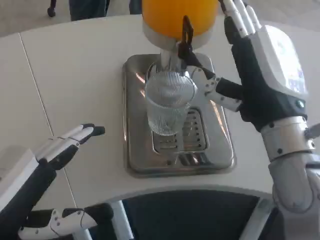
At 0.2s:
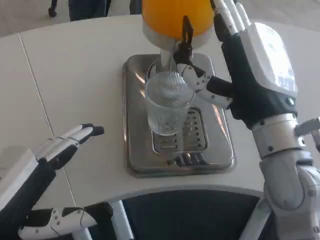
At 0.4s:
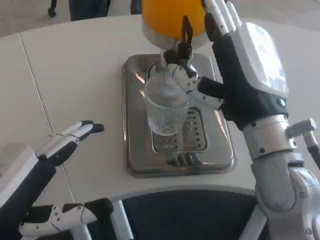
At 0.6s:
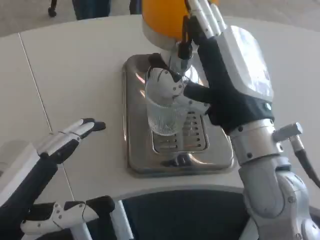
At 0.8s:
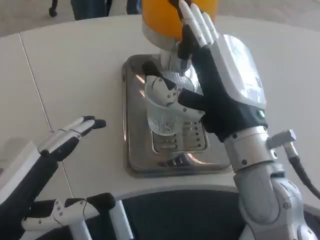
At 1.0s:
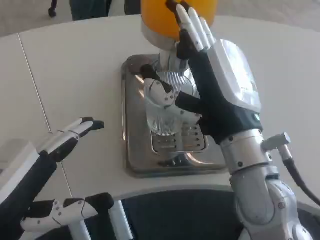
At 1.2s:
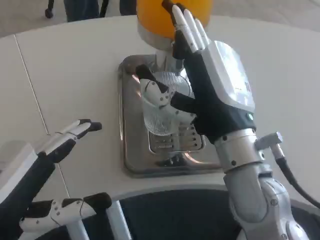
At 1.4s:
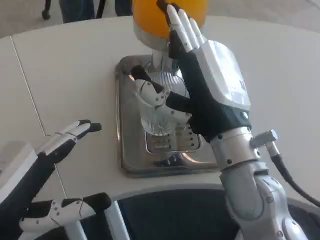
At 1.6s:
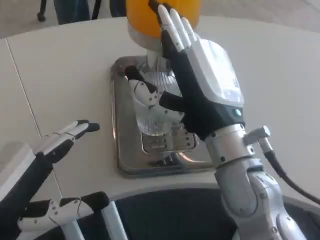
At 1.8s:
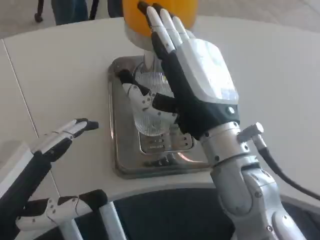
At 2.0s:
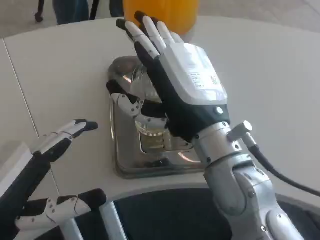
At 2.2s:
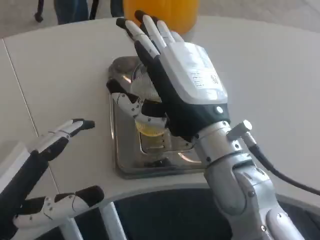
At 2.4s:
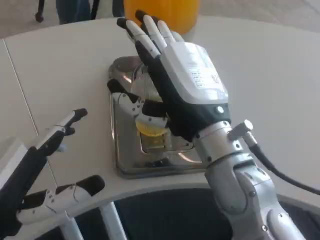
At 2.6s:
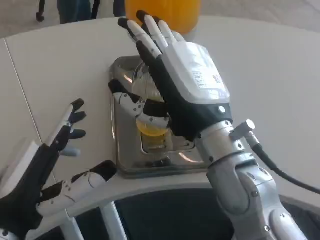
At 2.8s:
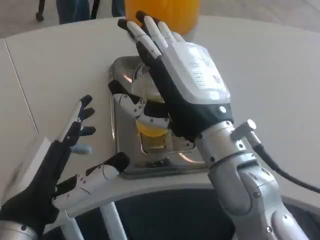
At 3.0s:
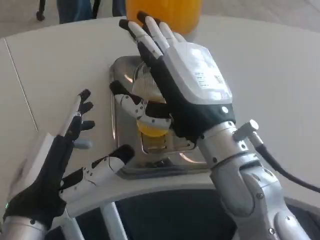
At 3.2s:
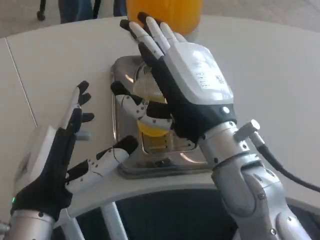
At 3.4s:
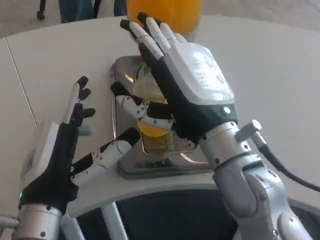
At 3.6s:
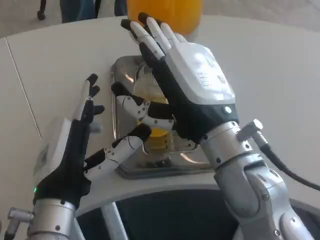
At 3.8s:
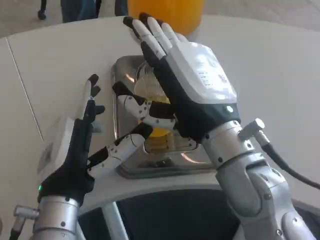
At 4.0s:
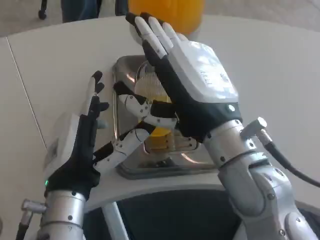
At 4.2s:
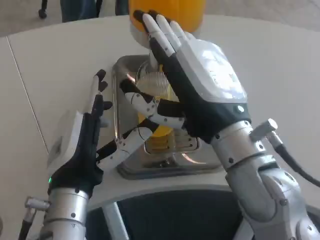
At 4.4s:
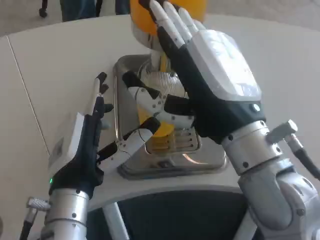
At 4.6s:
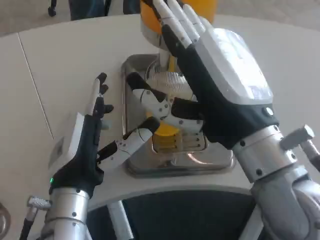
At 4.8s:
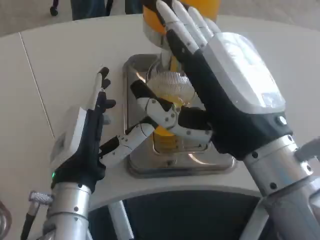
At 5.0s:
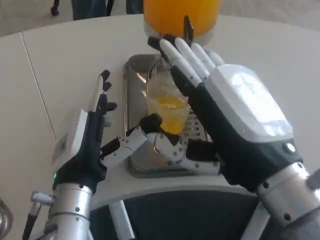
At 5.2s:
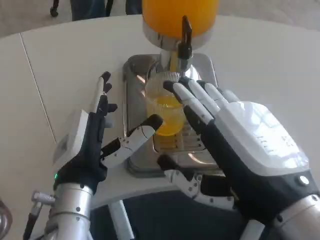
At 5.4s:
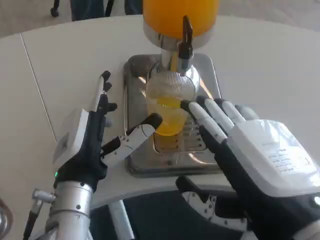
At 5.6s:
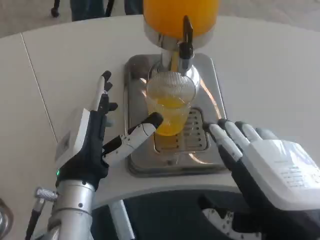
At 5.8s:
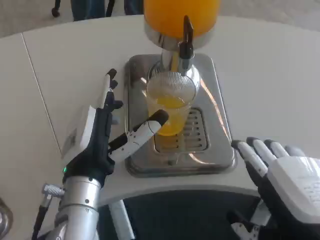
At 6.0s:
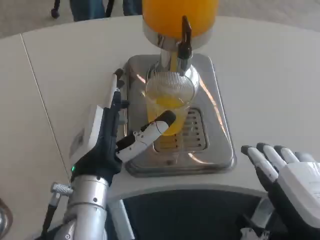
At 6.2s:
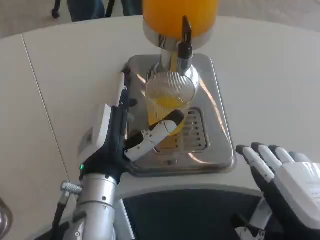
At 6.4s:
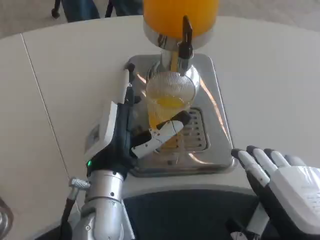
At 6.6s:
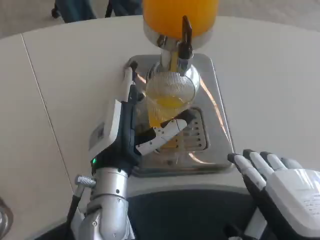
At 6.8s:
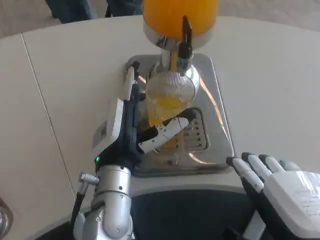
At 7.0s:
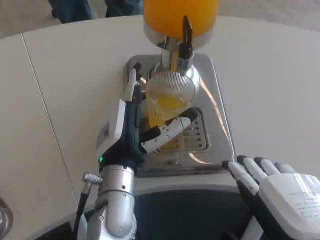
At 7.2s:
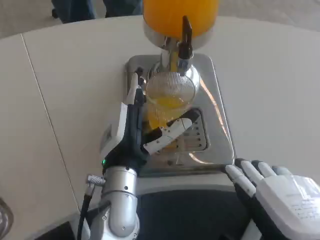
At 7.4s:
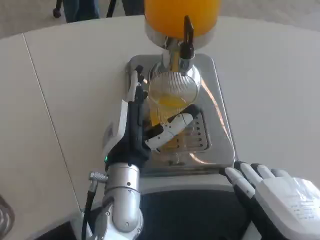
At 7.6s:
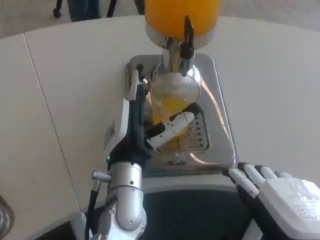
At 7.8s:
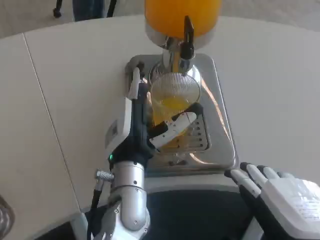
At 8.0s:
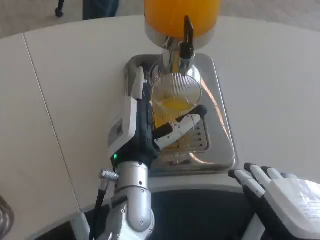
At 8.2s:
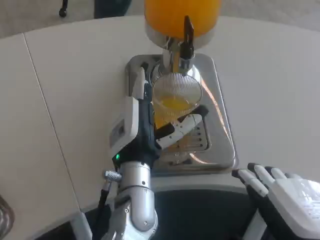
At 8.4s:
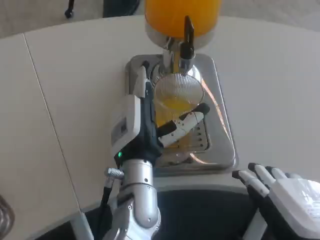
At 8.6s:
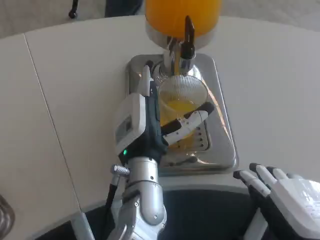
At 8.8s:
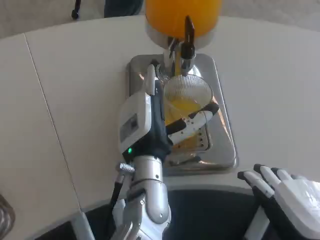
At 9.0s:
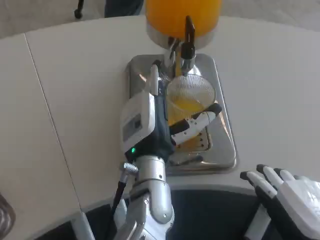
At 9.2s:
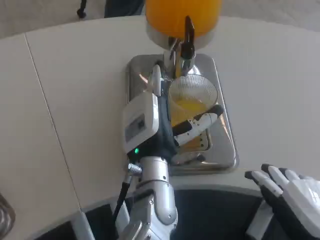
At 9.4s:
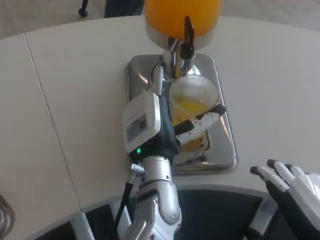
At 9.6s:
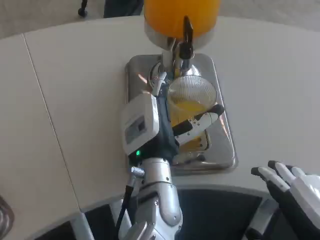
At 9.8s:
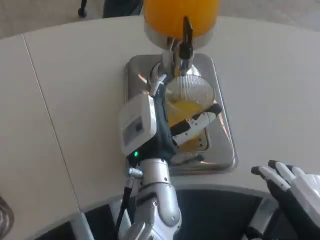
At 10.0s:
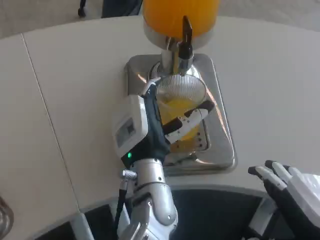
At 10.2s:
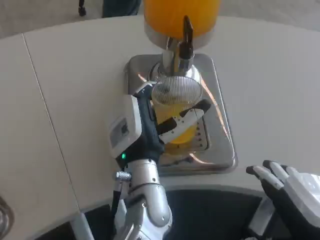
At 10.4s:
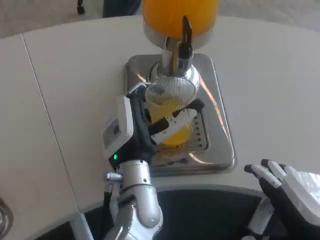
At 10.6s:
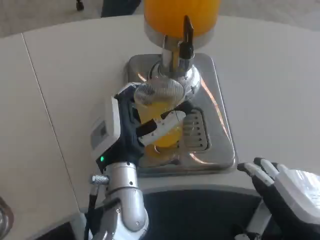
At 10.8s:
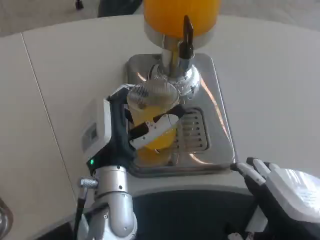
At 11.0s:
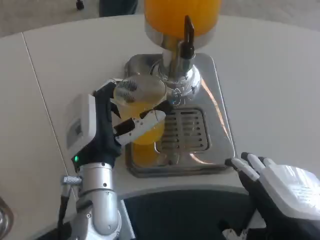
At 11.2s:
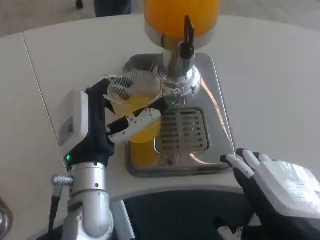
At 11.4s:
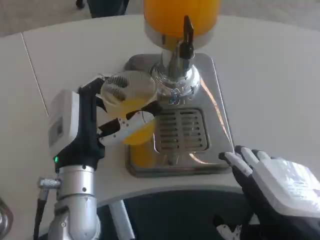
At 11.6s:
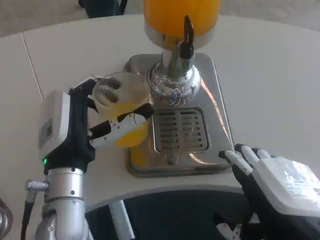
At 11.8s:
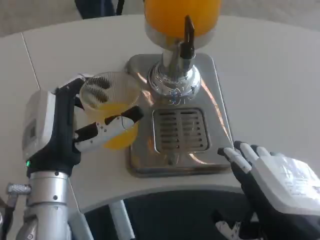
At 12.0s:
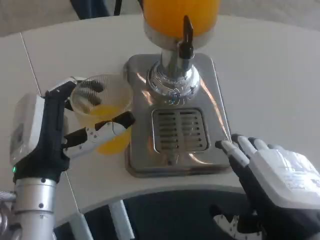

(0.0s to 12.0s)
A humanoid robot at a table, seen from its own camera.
Task of the whole recording: Grasp the cup under the faucet to collect the drink, then remove the cup.
0.0s - 1.6s: The right hand is displaced to the left by about 5 cm.
1.6s - 3.0s: The left hand travels to the right by roughly 5 cm.
3.0s - 4.4s: The left hand changes place by approximately 5 cm.
4.4s - 6.0s: The right hand goes some 15 cm backward and to the right.
6.0s - 7.6s: The left hand shifts by roughly 5 cm.
9.0s - 10.4s: The hands move only a little.
10.4s - 12.0s: The left hand heads to the left and backward, covering some 15 cm.

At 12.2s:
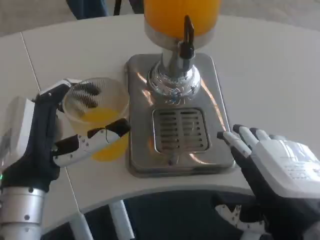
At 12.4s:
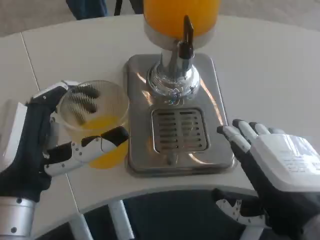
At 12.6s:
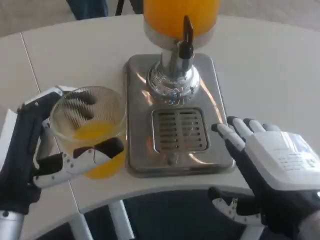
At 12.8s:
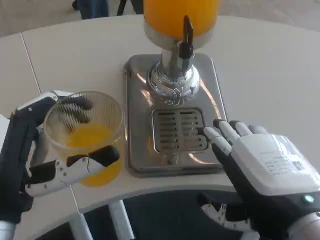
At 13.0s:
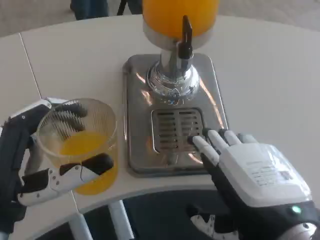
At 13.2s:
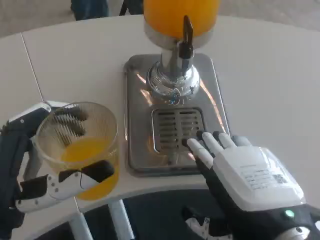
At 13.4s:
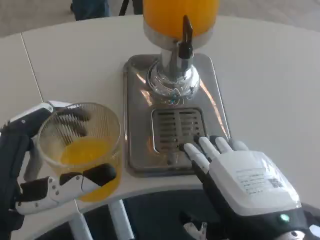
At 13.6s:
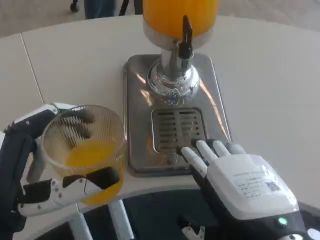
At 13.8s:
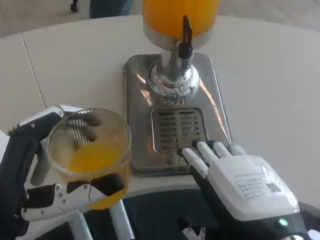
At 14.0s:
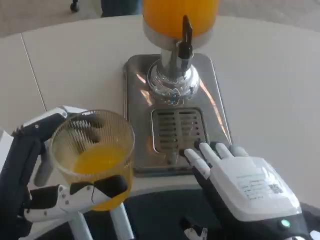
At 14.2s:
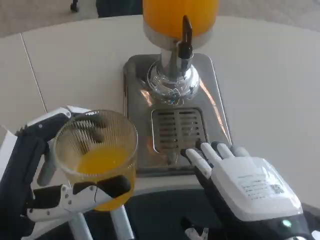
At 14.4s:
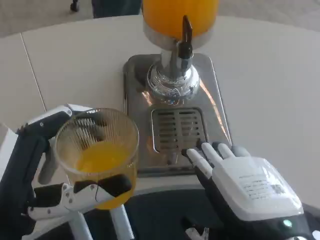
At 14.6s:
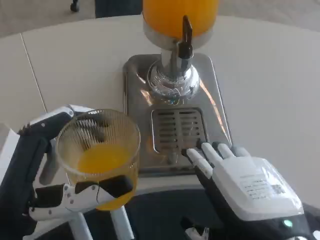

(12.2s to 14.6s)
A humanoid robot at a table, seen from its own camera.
Task of the whole recording: Grasp the cup under the faucet to collect the drink, then remove the cup.
12.2s - 13.4s: The left hand shifts approximately 5 cm backward.
13.4s - 14.6s: Both hands stay put.

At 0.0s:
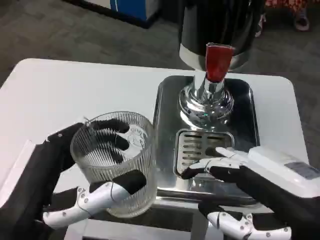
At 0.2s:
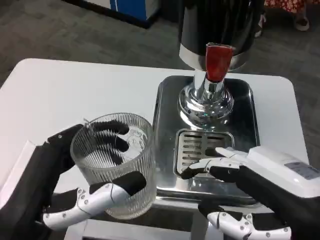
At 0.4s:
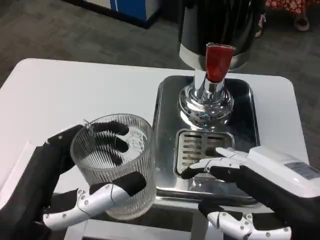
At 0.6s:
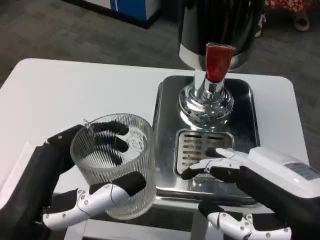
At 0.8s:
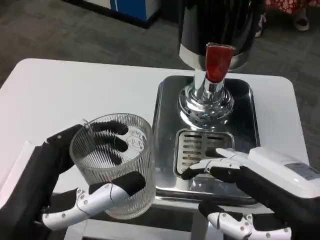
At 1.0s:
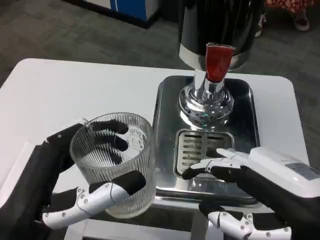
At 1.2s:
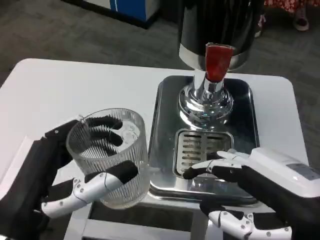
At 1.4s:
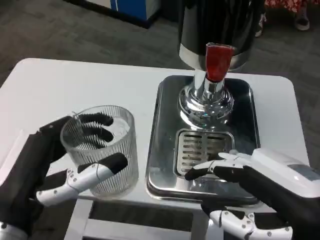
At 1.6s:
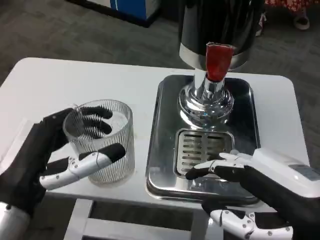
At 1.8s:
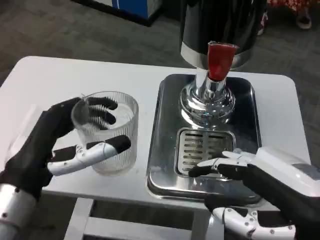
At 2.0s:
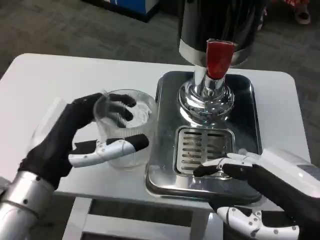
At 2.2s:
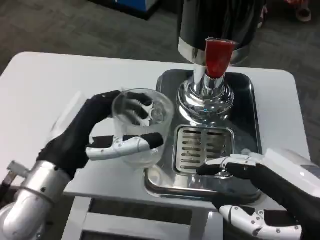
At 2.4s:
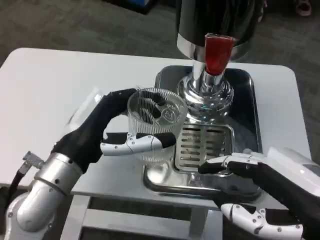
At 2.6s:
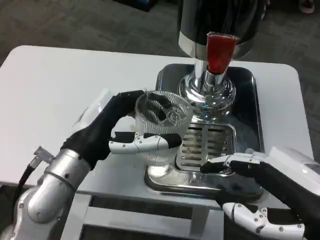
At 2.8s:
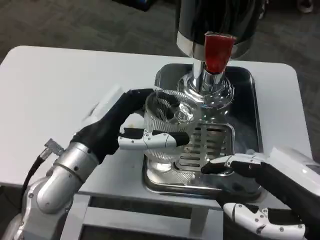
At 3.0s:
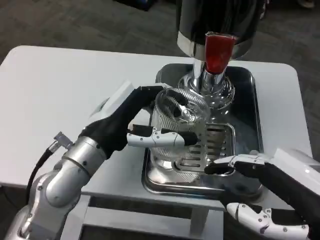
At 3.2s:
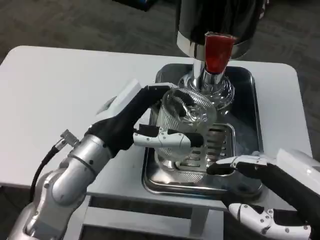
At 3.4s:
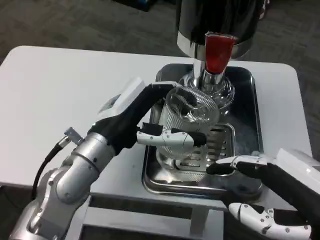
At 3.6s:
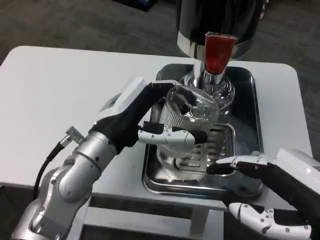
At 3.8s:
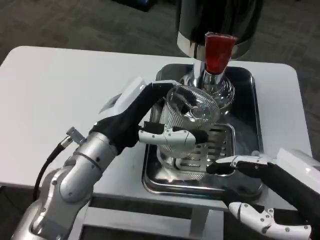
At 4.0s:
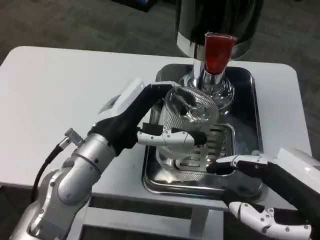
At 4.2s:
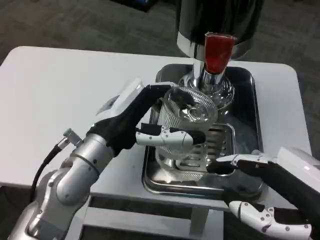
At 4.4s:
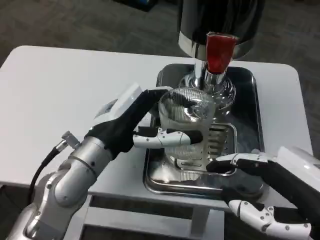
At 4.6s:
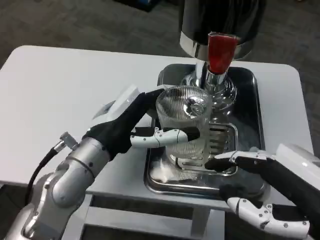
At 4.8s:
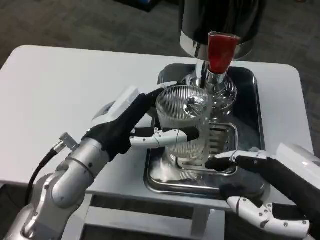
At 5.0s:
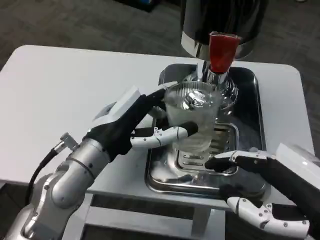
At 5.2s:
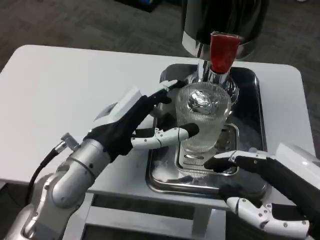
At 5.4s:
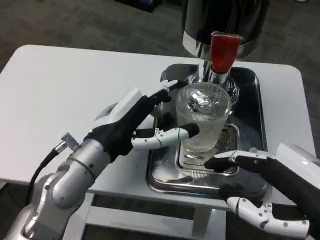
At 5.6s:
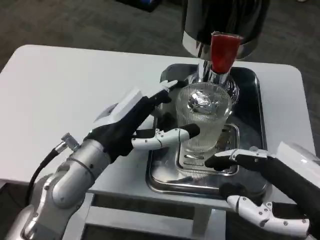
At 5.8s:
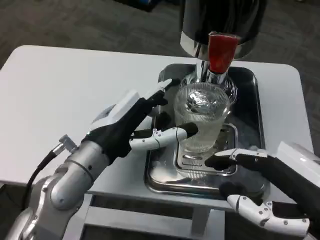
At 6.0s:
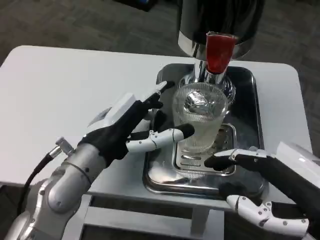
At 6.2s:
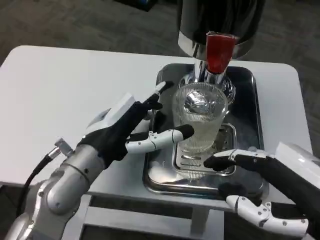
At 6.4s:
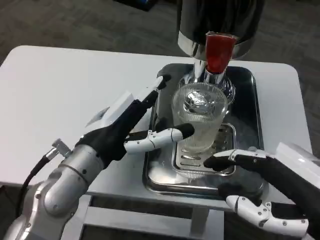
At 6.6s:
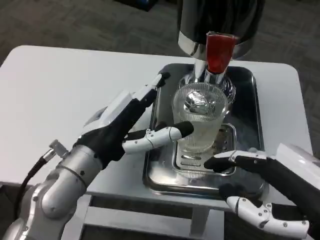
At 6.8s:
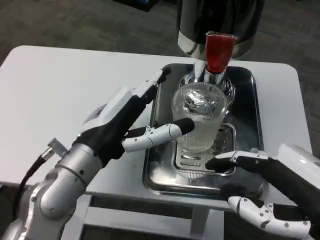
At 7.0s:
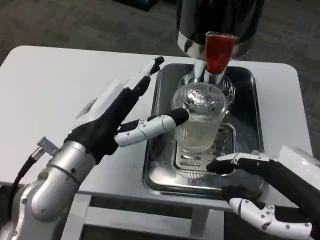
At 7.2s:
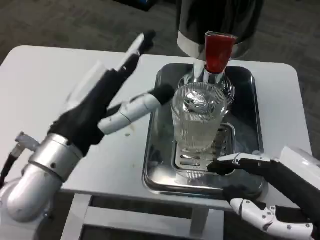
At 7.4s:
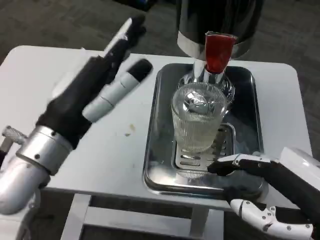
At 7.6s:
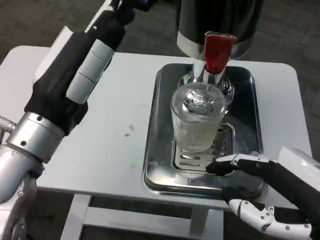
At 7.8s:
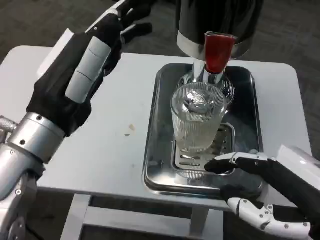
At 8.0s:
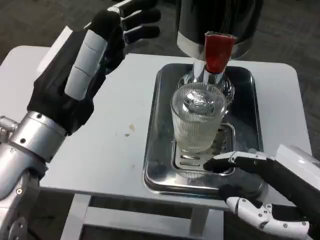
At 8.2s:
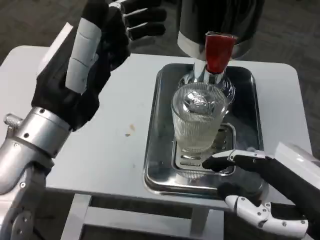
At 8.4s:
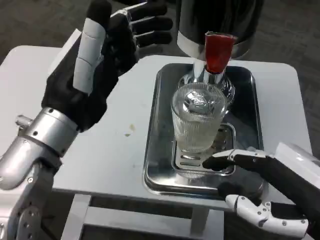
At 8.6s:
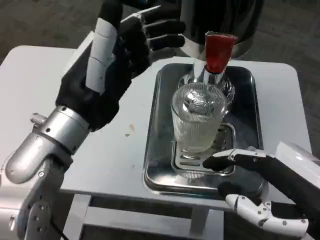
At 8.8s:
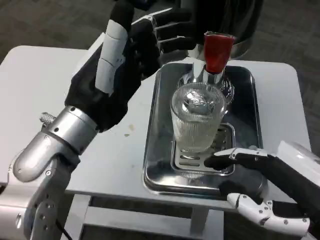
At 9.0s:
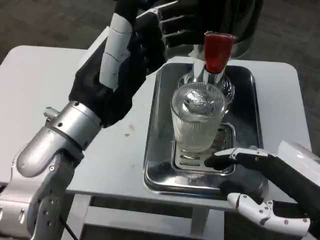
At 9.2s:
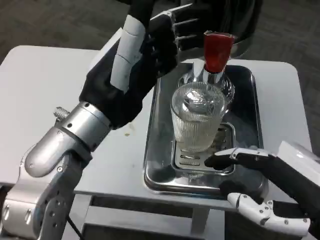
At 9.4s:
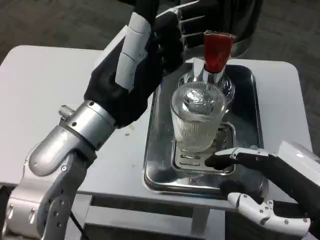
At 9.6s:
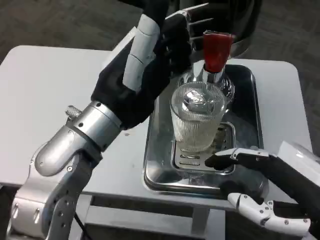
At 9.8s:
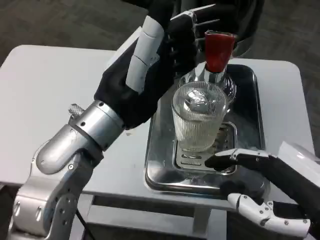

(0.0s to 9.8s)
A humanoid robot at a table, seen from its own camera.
Task of the whole recording: Grasp the cup under the faucet to collect the drink, then remove the cup.
0.0s - 1.4s: The hands move only a little.
1.4s - 2.8s: The left hand is displaced forward by approximately 15 cm.
